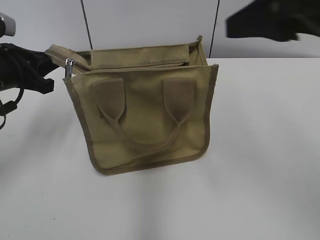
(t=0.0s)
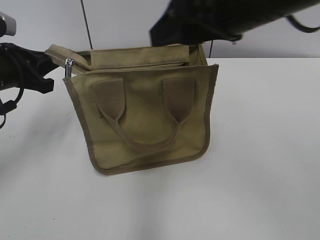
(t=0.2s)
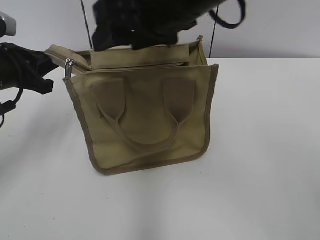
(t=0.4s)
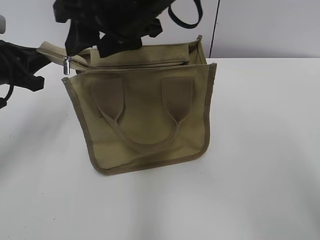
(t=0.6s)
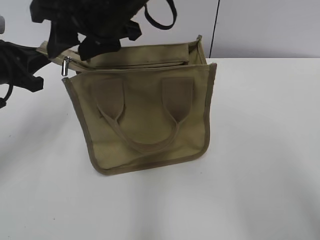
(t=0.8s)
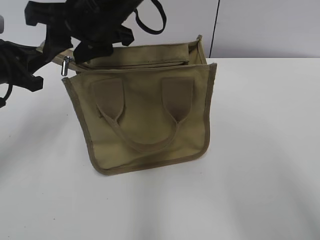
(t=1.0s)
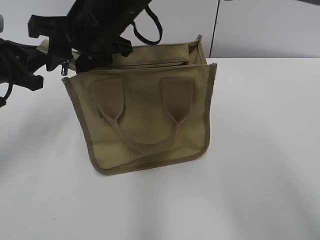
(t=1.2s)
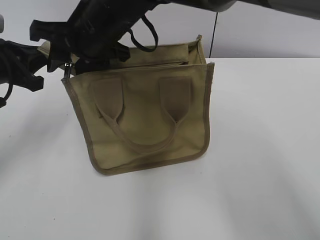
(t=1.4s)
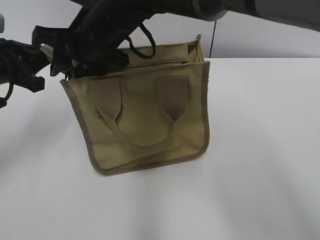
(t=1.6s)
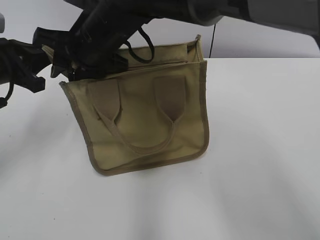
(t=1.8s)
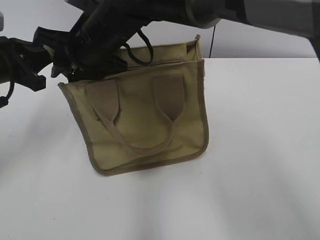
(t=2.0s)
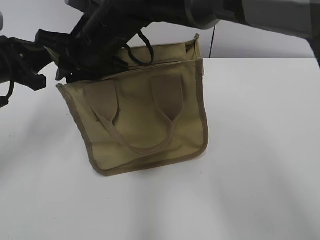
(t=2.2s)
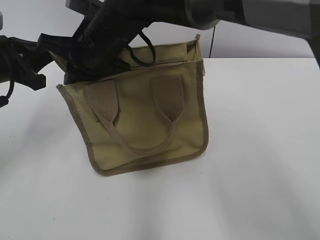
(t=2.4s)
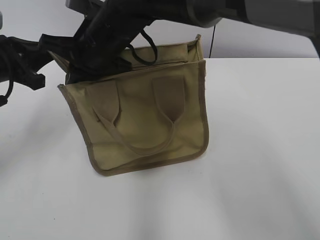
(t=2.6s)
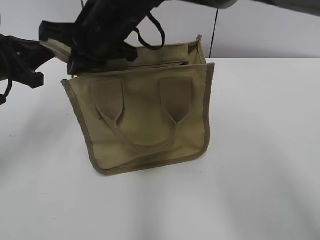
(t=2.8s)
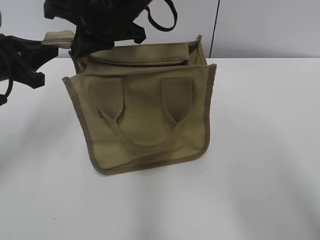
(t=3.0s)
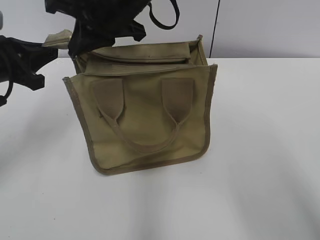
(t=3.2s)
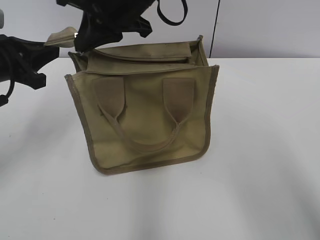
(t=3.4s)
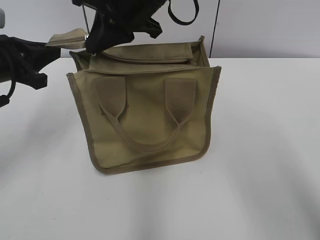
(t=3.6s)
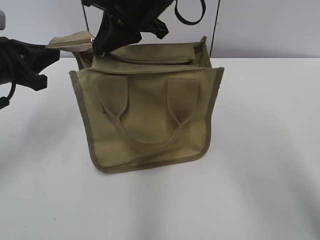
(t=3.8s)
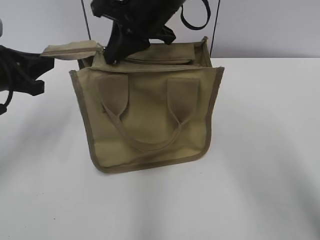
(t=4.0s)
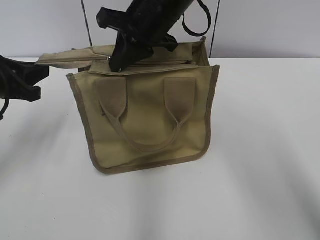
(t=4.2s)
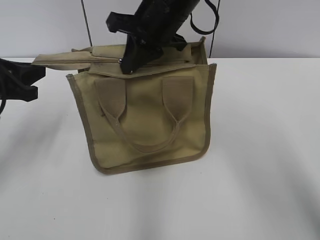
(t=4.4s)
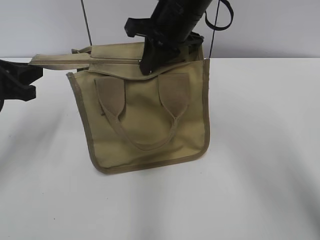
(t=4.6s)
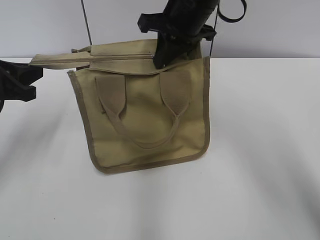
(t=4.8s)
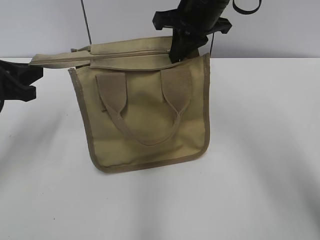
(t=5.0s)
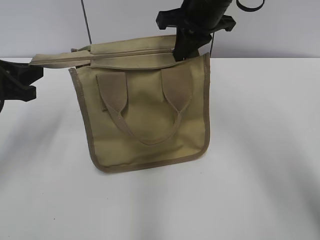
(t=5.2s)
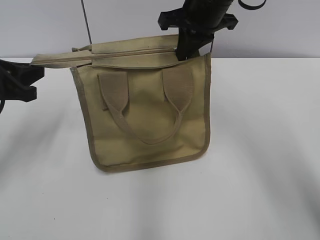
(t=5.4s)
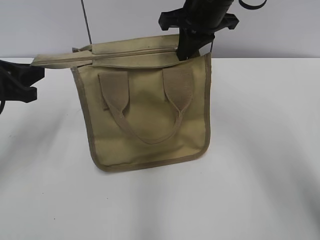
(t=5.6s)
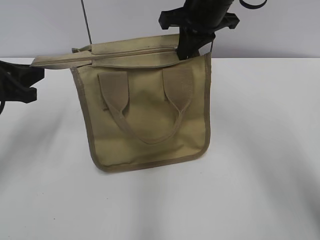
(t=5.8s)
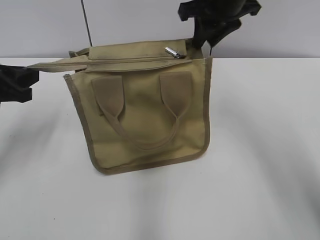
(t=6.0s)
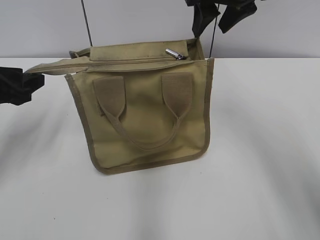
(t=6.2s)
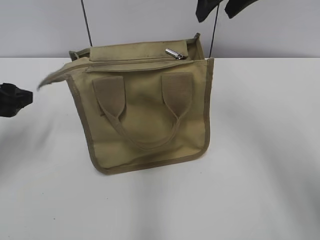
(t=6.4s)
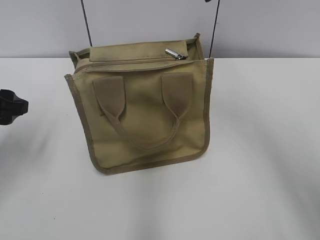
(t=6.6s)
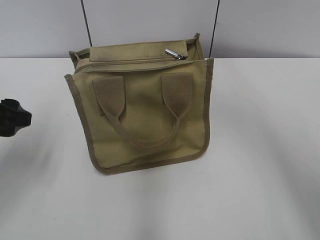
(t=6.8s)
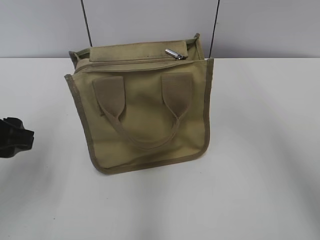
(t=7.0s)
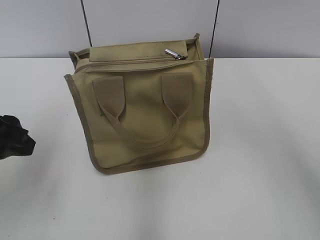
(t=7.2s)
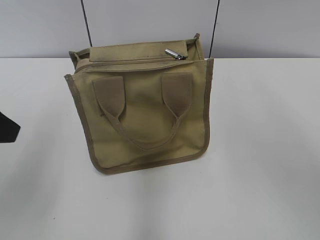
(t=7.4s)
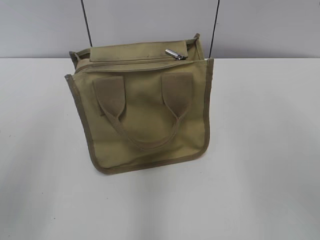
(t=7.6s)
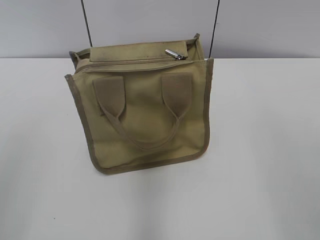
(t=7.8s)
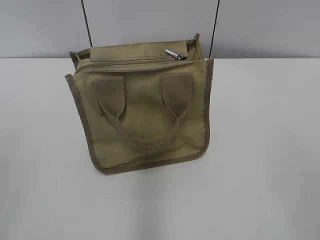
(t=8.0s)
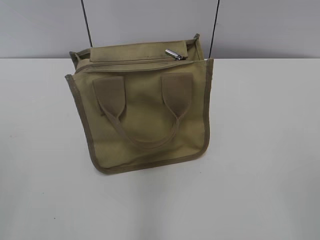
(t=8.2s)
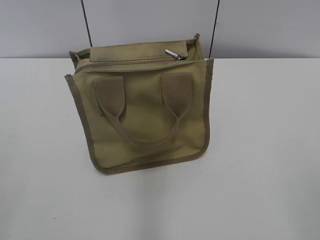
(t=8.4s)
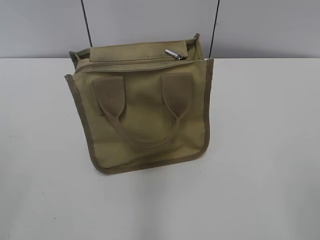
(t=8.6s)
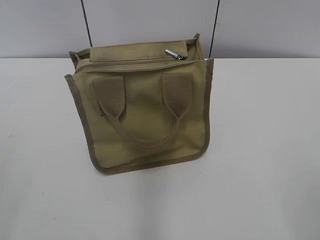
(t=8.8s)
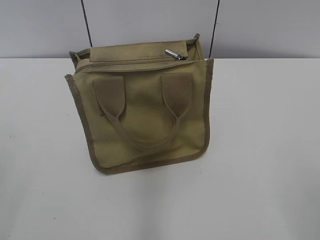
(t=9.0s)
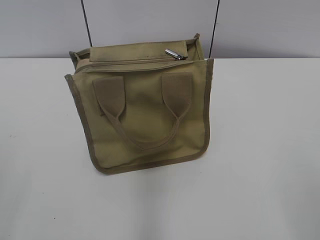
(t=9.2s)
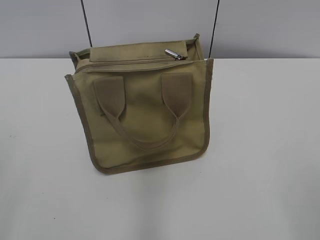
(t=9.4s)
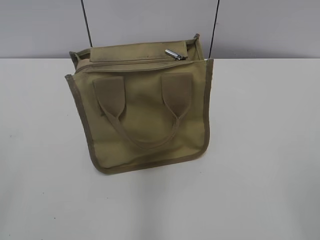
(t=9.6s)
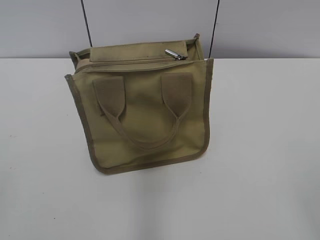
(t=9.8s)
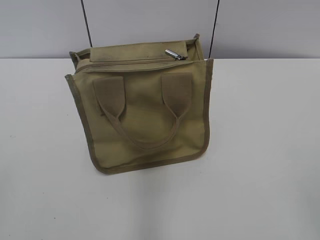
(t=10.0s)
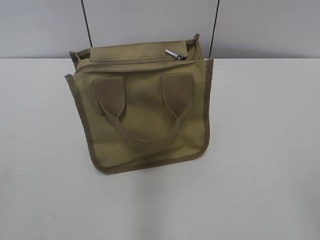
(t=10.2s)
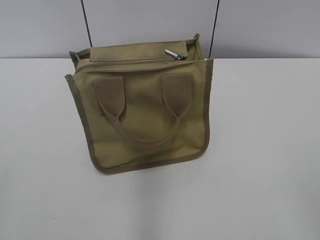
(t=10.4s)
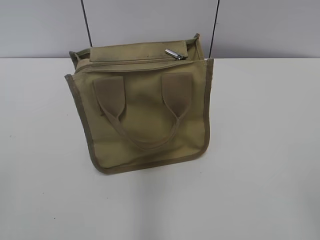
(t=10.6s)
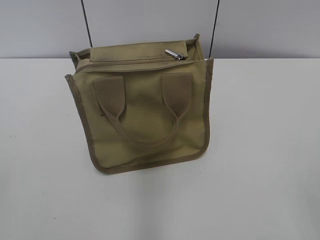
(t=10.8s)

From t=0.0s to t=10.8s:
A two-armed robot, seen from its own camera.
Step, from t=0.0s to t=5.8s: Zip up the bag with your right hand.
From t=0.0s to t=1.6s: The right gripper is displaced to the left and forward by approximately 30 cm, and closes up.
From t=1.6s to t=3.0s: The right gripper moves roughly 5 cm, and closes its fingers.
From t=3.0s to t=4.6s: The right gripper goes some 10 cm to the right.
From t=4.6s to t=6.2s: The left gripper opens up; the right gripper travels to the right and upward by some 10 cm, and opens.
From t=6.2s to t=7.8s: The left gripper goes approximately 25 cm backward and upward. The right gripper shifts some 35 cm backward and to the right.

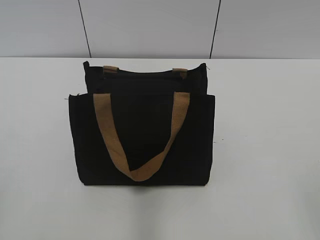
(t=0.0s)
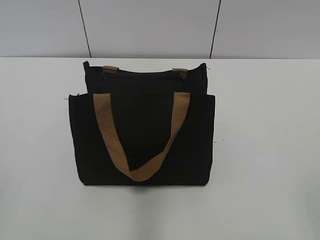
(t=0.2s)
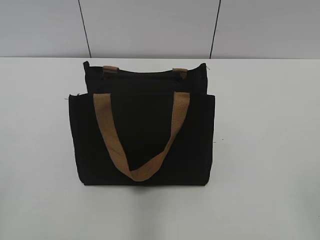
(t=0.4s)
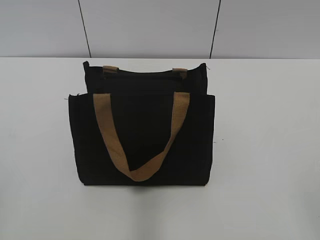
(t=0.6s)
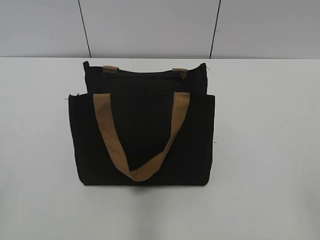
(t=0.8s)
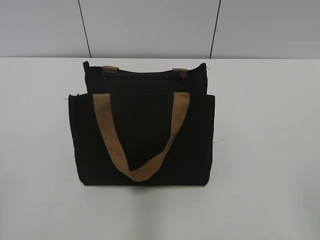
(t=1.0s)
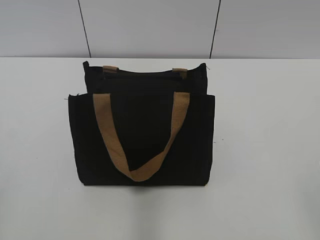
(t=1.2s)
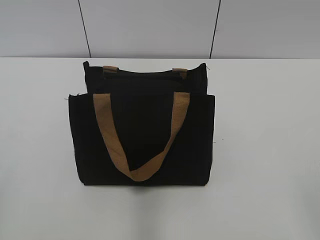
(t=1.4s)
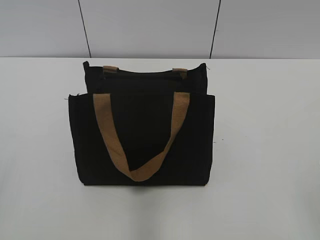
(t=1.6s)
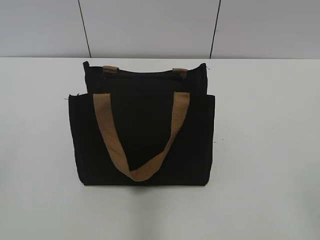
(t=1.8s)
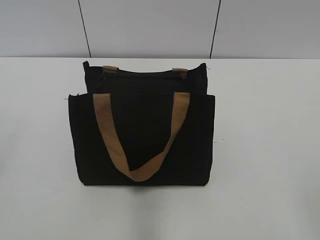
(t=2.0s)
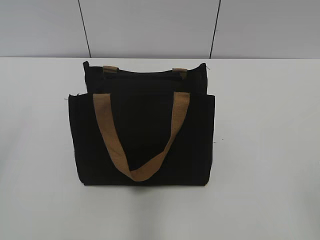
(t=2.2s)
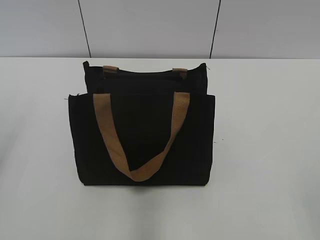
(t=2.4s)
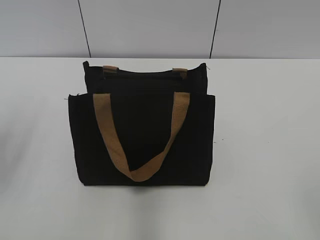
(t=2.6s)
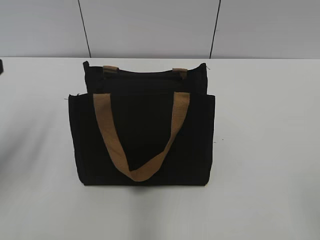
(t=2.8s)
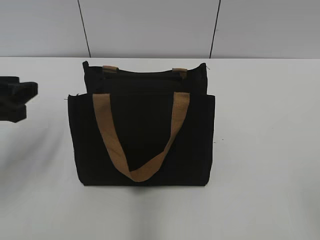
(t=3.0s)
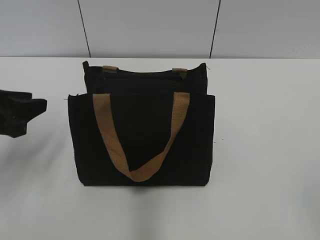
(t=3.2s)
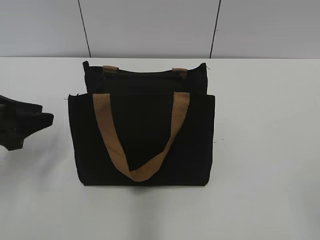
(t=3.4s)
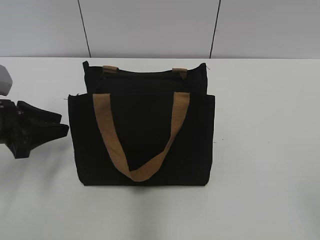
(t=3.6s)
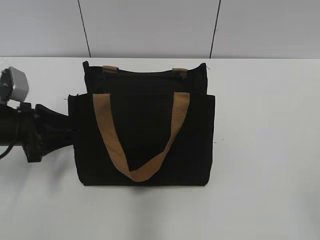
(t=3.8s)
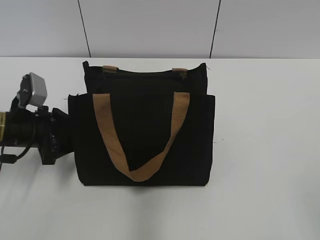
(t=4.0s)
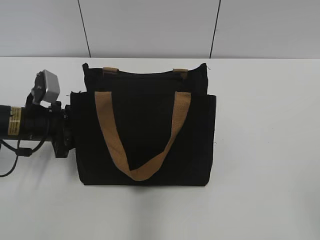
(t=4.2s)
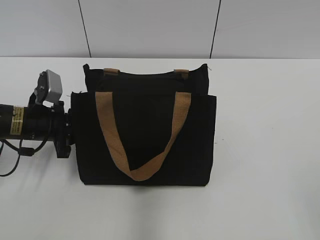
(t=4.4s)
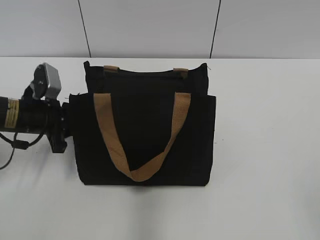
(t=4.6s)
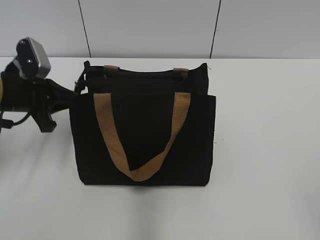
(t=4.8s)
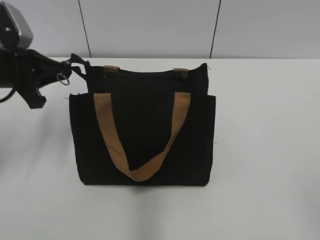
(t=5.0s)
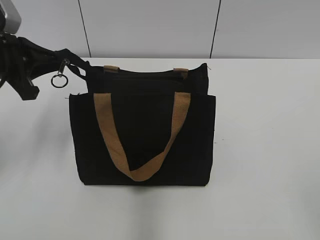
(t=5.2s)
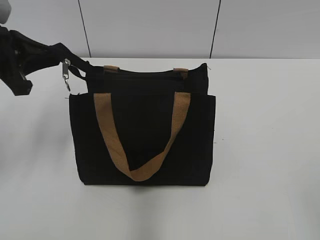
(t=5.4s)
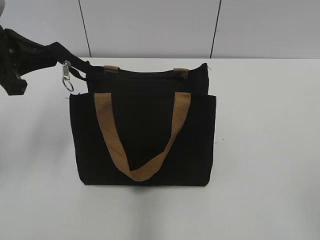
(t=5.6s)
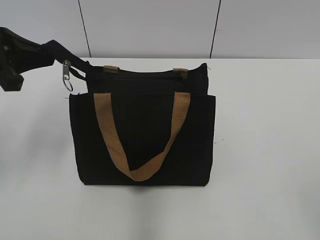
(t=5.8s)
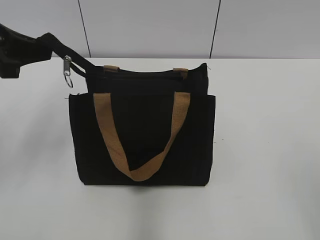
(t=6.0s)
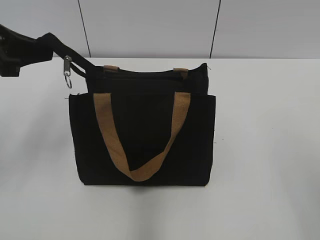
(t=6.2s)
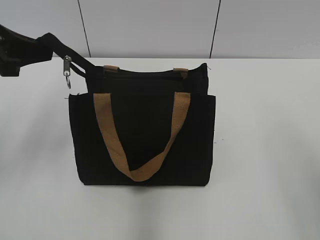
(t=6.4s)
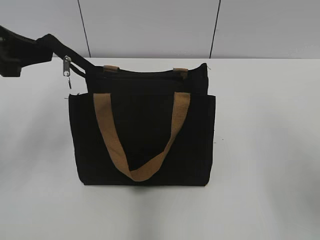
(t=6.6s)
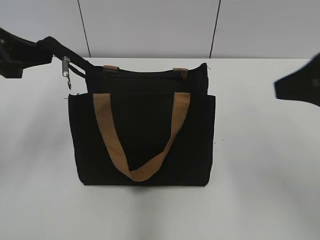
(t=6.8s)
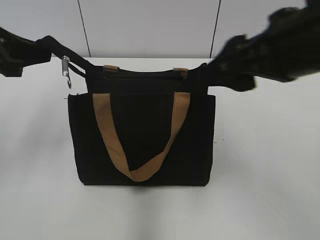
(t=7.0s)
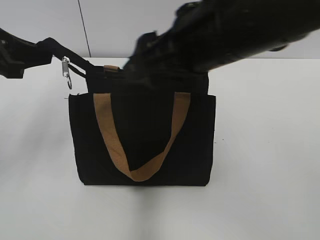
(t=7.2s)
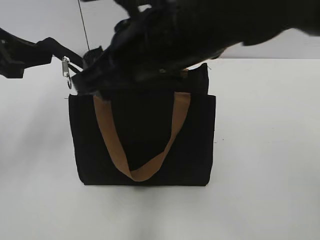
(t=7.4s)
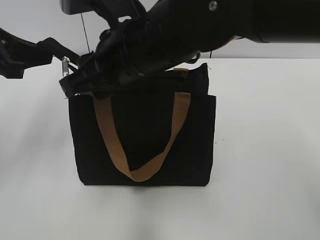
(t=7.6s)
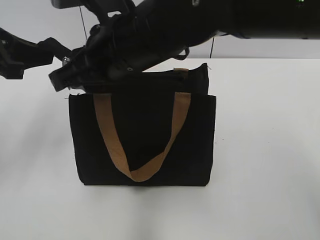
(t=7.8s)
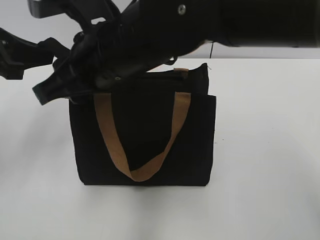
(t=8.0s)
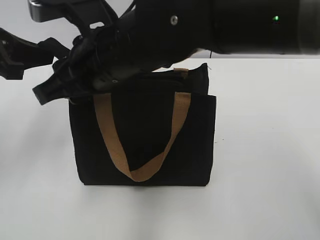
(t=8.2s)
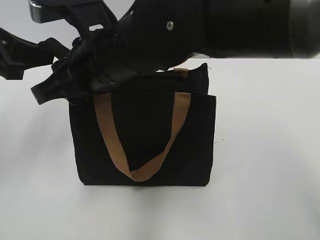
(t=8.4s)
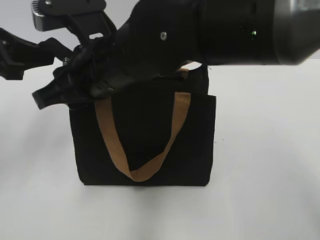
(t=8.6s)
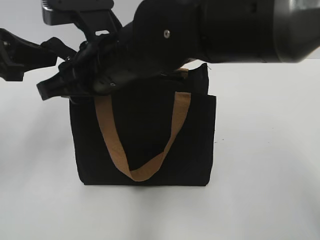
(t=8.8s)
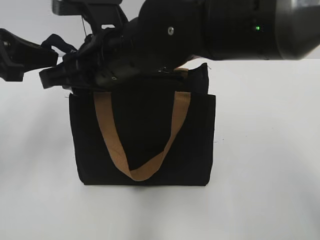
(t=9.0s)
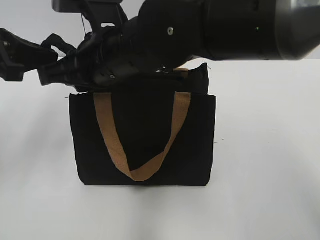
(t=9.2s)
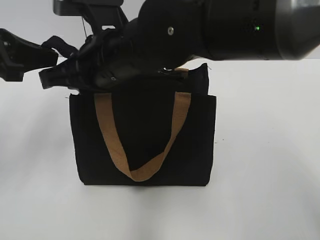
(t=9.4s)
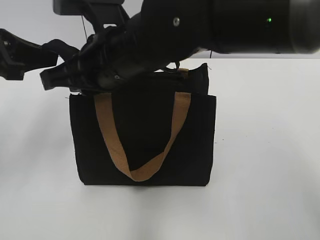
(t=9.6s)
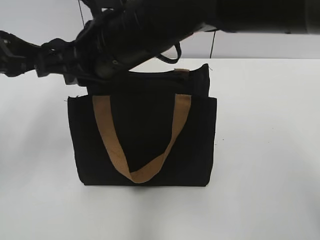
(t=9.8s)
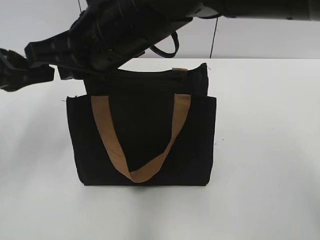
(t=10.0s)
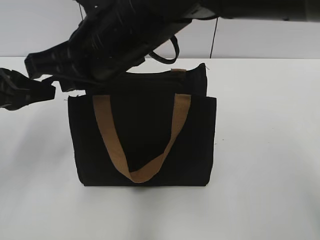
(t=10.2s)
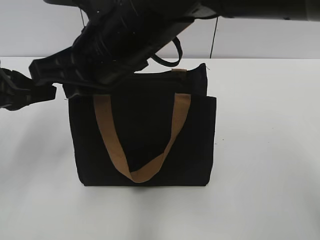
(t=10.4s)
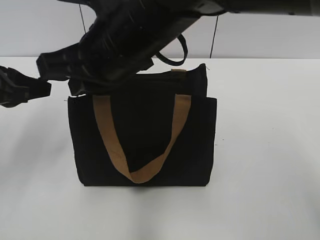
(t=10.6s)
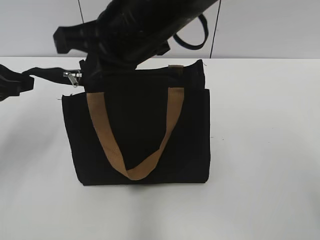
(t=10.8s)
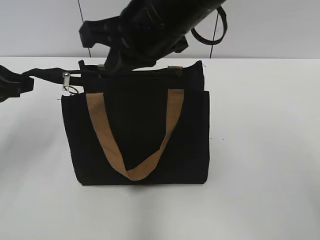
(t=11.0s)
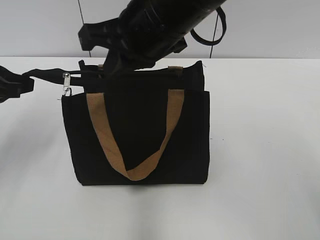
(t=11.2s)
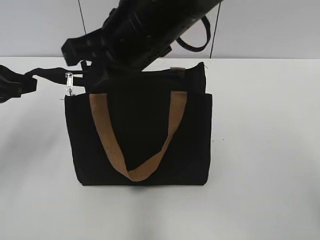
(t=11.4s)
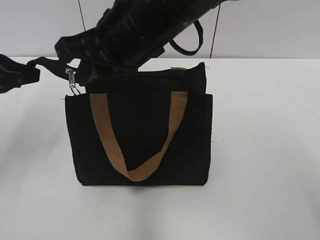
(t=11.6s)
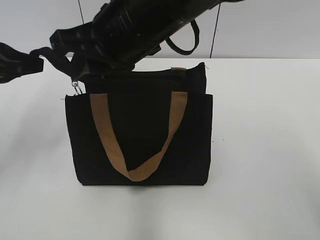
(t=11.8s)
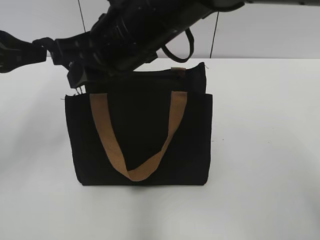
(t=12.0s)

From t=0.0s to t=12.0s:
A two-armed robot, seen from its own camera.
From t=1.6s to t=3.0s: The left gripper is displaced forward by some 25 cm.
From t=3.0s to t=4.4s: The left gripper is displaced downward and forward by some 15 cm, and closes.
From t=4.4s to t=6.0s: The left gripper heads upward, covering roughly 20 cm.
From t=6.0s to t=7.6s: The right gripper travels to the left and forward by roughly 40 cm, and closes up.
From t=7.6s to t=9.0s: The grippers make only small movements.
From t=9.0s to t=10.4s: The right gripper closes.
From t=10.4s to t=12.0s: The right gripper opens up.
